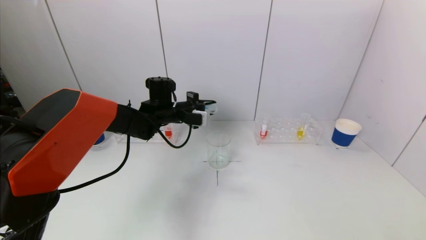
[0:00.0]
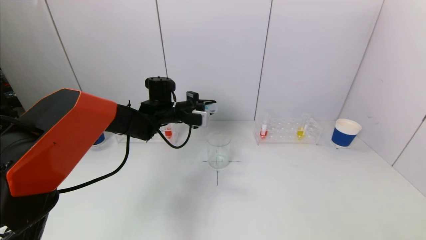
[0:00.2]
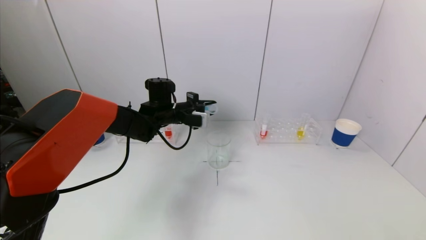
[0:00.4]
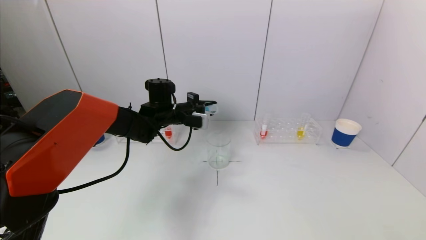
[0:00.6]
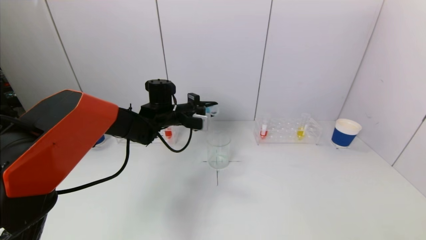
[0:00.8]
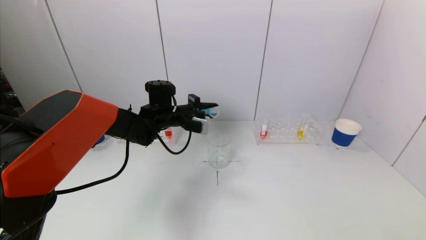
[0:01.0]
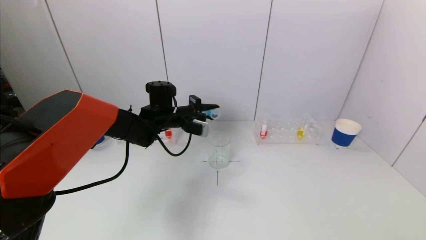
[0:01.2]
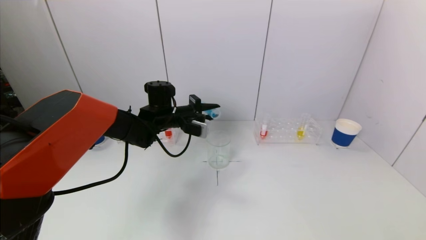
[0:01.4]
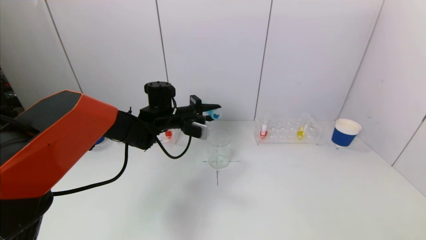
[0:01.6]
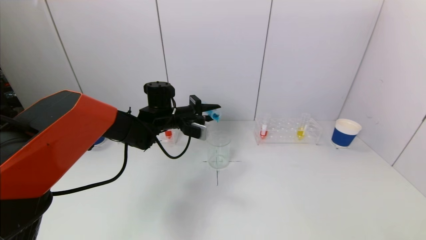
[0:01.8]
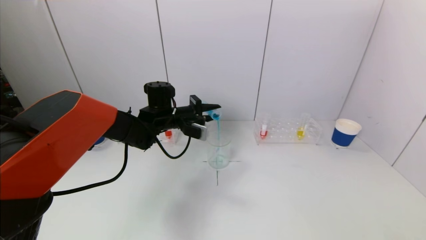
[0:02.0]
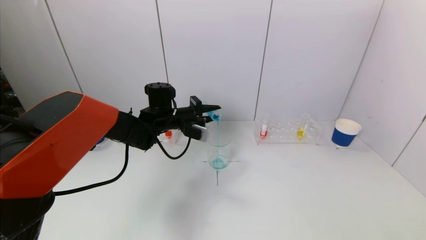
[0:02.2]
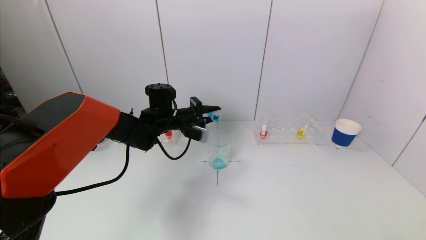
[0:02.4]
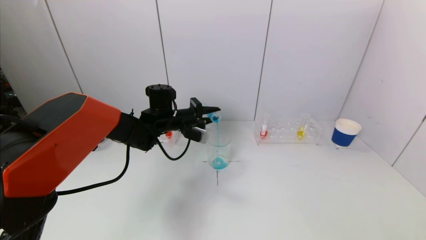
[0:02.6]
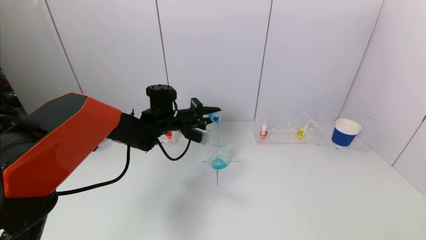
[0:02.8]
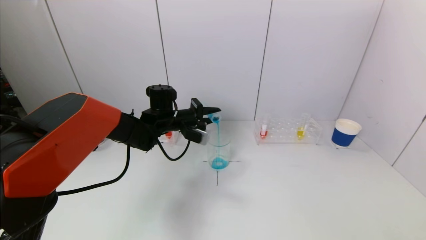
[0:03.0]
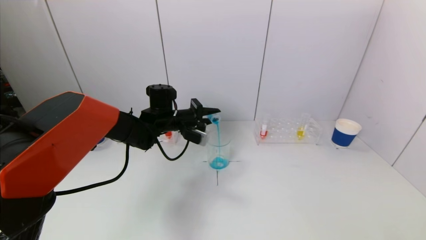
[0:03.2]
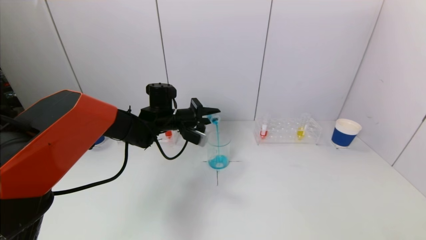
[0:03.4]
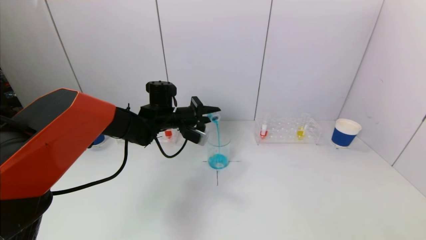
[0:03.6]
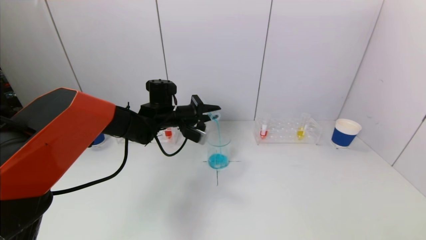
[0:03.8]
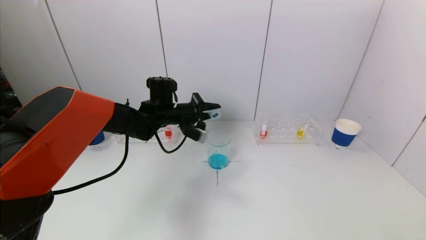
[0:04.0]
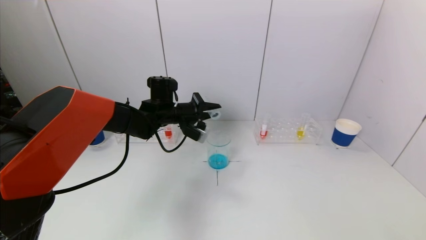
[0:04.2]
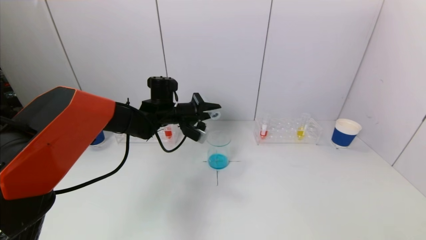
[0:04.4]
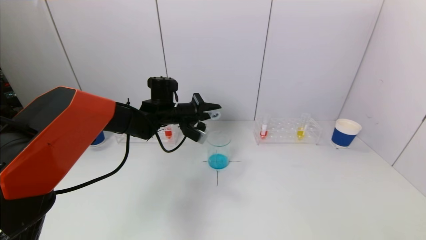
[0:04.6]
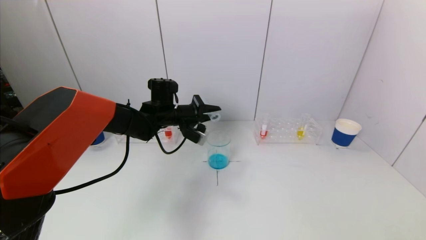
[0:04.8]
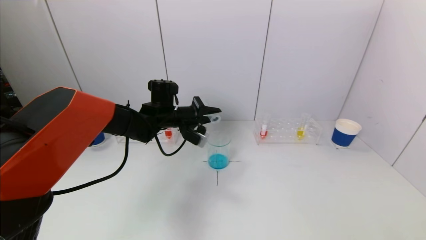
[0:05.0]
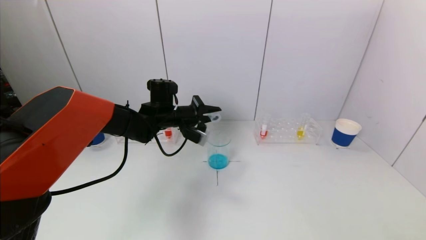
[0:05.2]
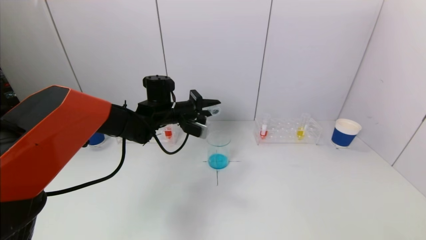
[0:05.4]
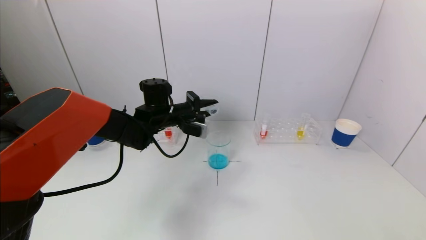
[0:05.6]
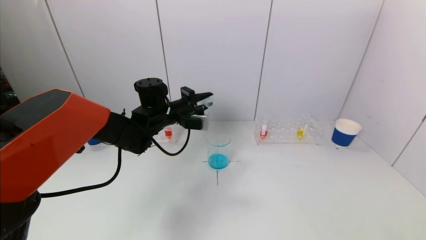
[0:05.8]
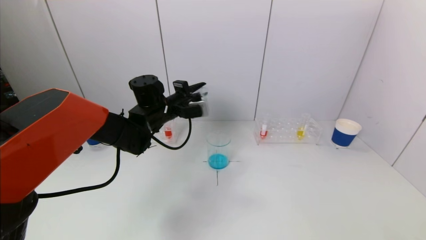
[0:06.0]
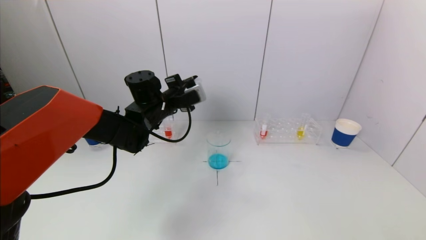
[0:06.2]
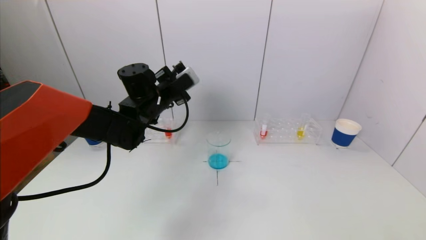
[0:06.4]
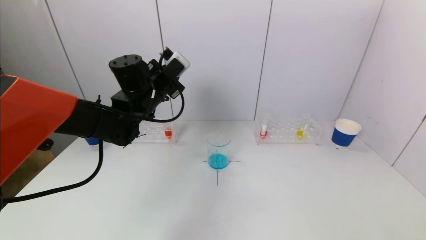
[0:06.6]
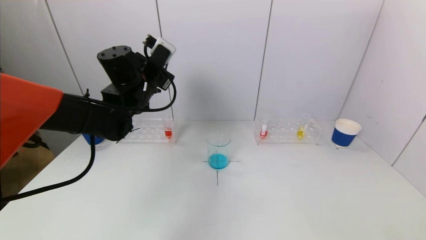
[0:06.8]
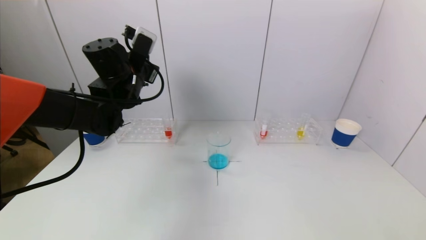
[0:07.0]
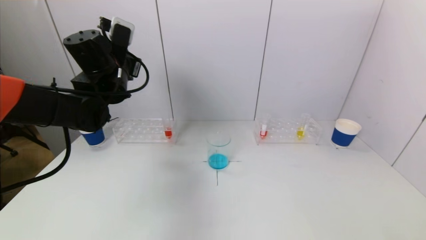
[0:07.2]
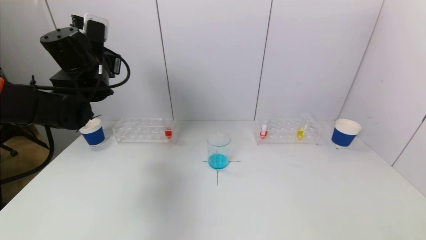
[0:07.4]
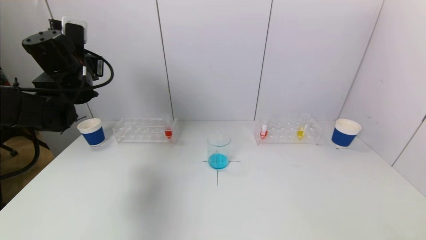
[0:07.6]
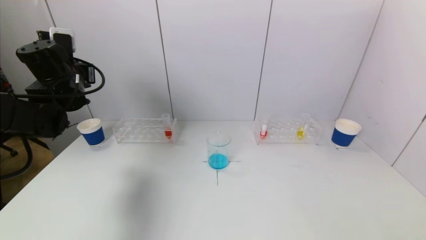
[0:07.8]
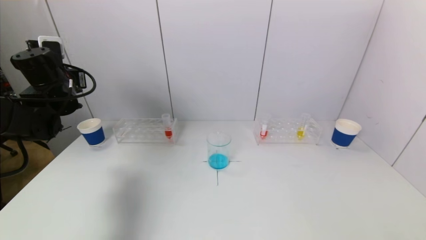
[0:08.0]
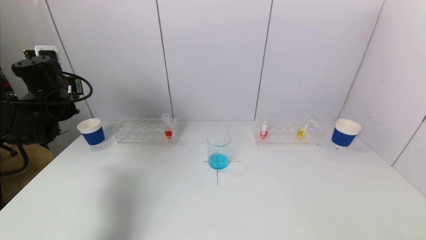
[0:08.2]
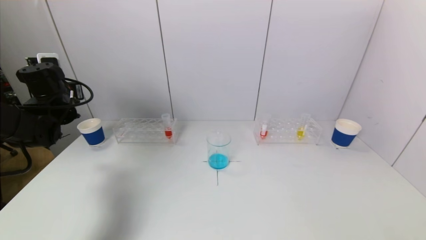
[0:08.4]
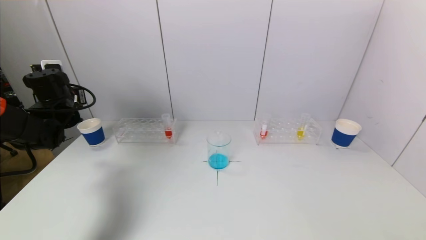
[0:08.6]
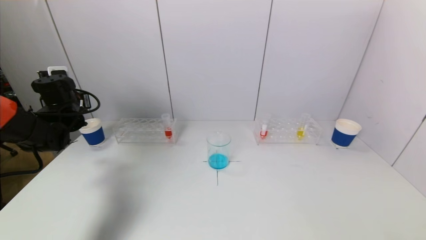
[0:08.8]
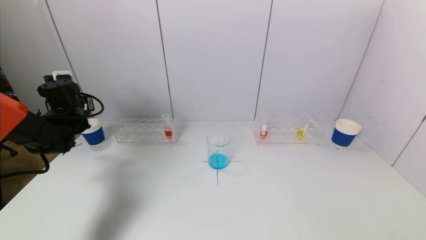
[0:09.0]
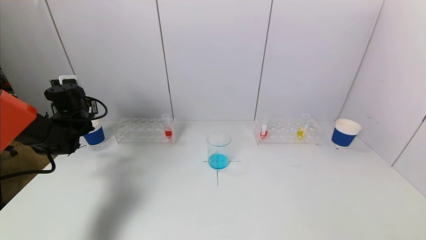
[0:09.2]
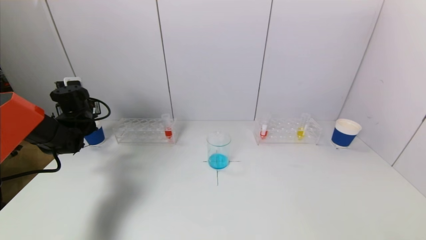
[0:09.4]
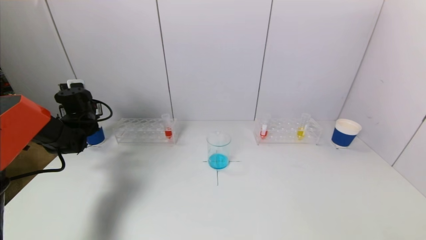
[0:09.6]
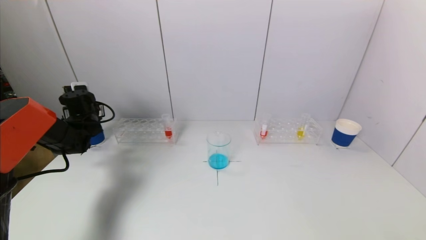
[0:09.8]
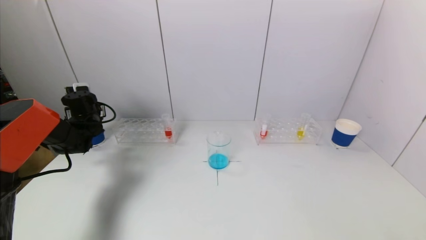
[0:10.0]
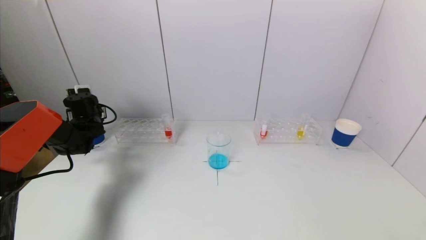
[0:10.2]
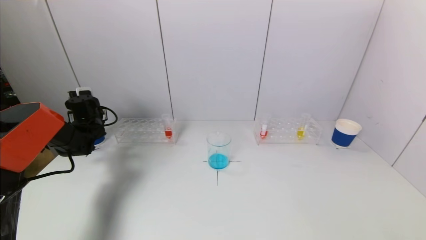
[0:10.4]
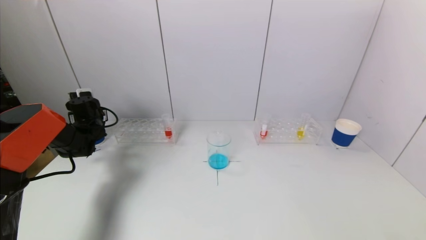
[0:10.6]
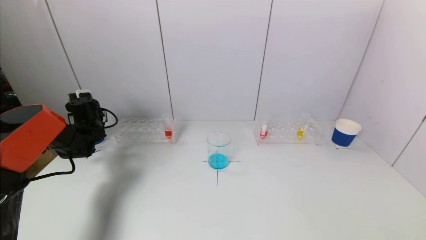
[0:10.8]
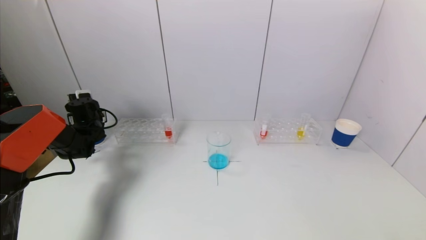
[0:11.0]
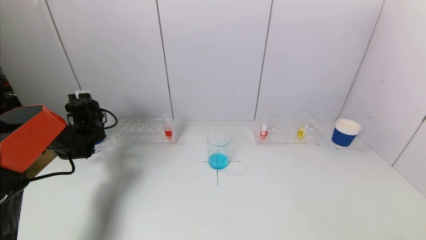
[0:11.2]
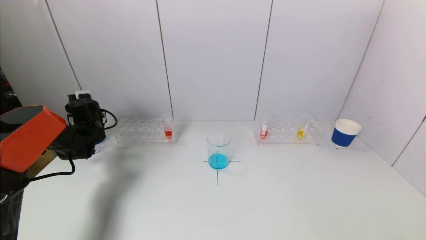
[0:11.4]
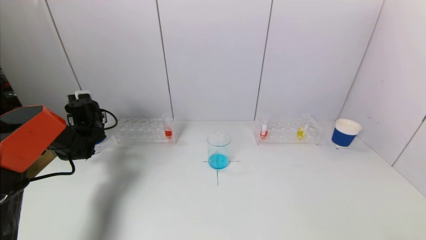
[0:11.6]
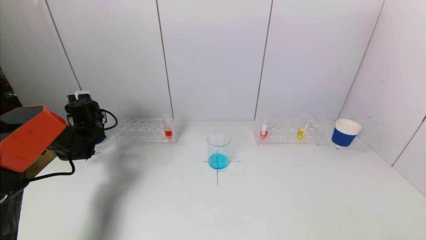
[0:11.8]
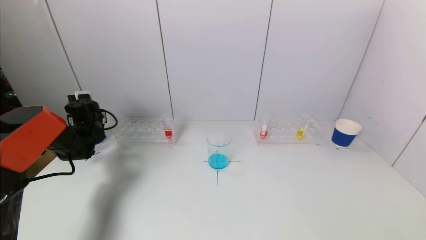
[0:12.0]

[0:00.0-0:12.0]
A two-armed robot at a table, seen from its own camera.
Task of the whole recording: pick up a test tube with pigment on left test tube rack and a test tube with pigment on right test tube rack by grippers and pour them into the beaker.
Step, 0:00.0 to 0:05.2: Pour the blue reagent into the graduated cylinder with the left gripper.
0:00.0 to 0:03.0: There are only small adjustments of the grippers.
0:03.0 to 0:04.4: The grippers stay close to where they were, moving slightly.
0:06.0 to 0:07.6: The left gripper travels to the left and upward by approximately 20 cm.
0:07.6 to 0:09.0: The left gripper heads downward and to the left, covering approximately 15 cm.
0:09.0 to 0:10.4: The left gripper travels downward and forward by approximately 10 cm.
0:10.4 to 0:12.0: The left gripper opens.

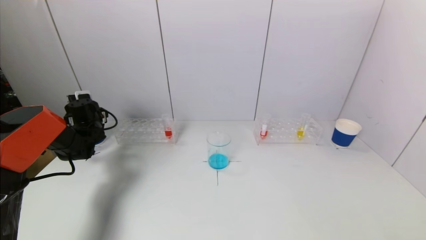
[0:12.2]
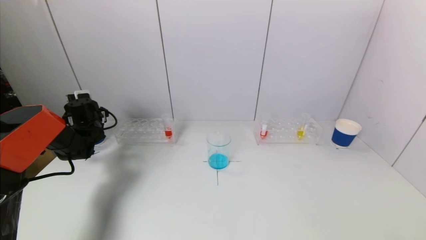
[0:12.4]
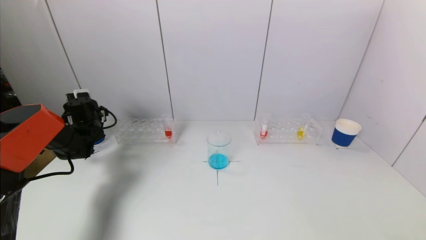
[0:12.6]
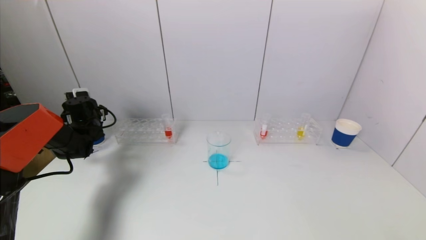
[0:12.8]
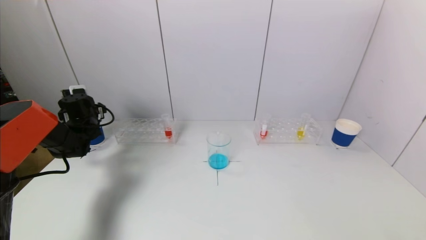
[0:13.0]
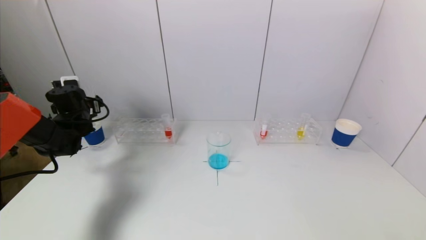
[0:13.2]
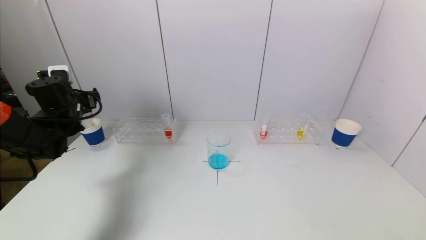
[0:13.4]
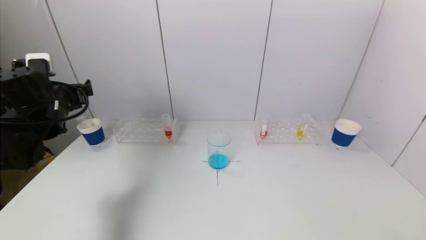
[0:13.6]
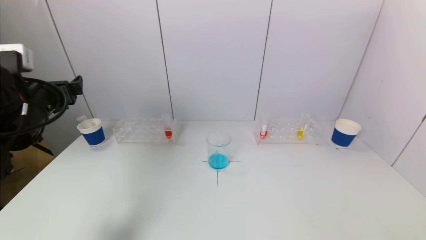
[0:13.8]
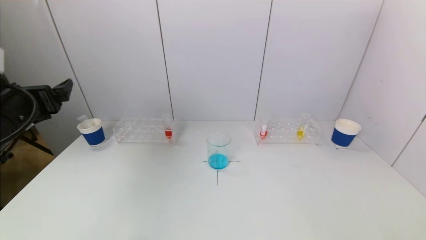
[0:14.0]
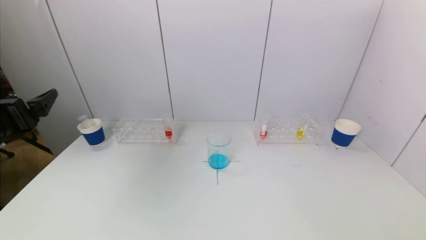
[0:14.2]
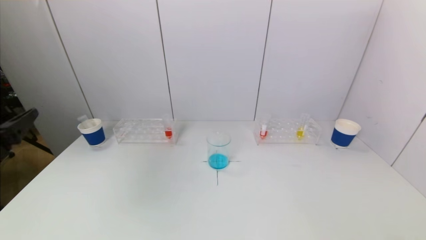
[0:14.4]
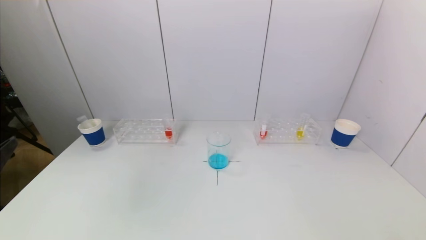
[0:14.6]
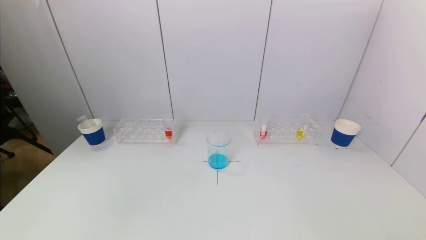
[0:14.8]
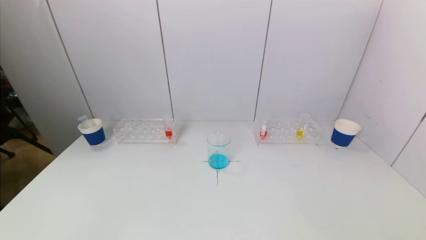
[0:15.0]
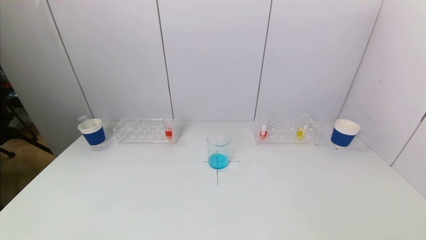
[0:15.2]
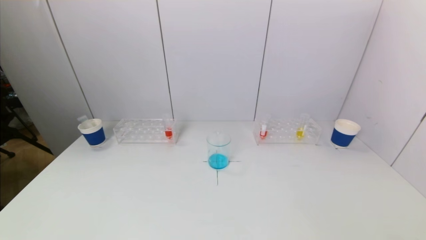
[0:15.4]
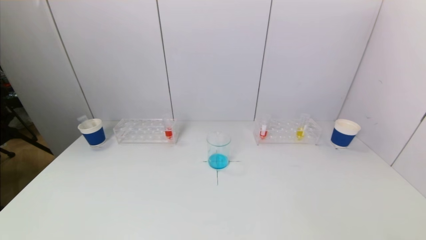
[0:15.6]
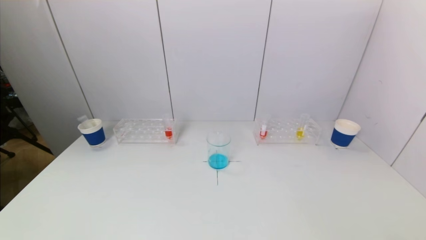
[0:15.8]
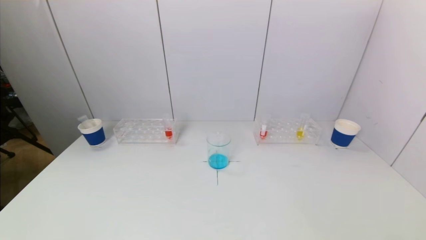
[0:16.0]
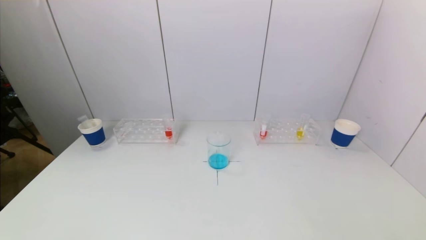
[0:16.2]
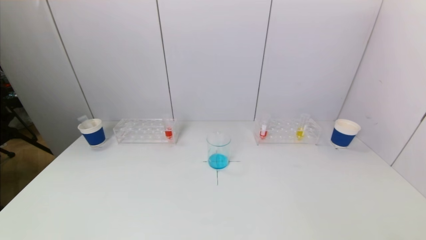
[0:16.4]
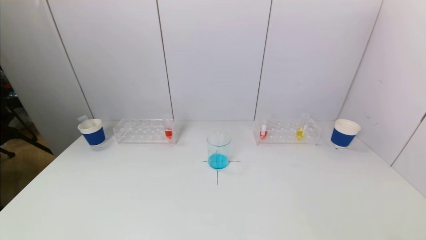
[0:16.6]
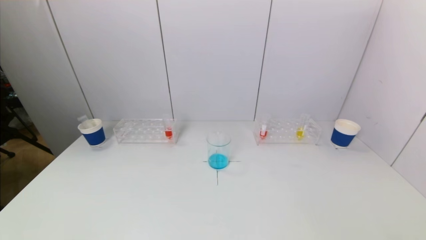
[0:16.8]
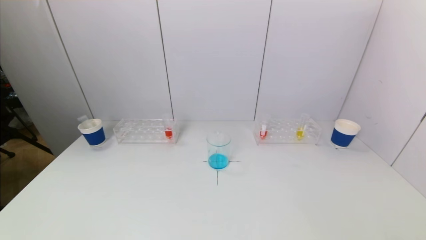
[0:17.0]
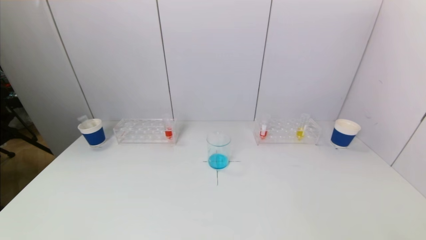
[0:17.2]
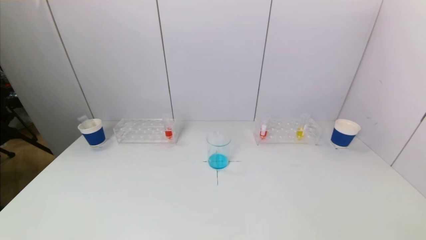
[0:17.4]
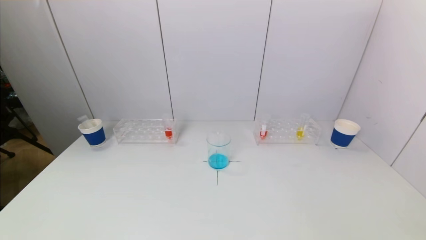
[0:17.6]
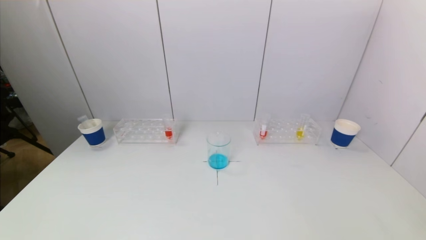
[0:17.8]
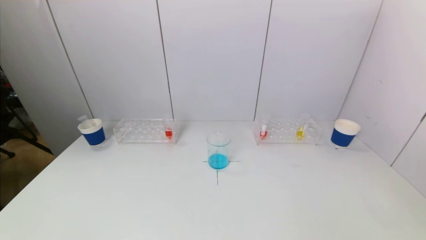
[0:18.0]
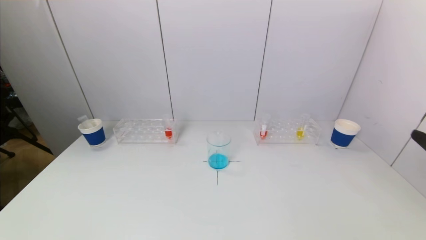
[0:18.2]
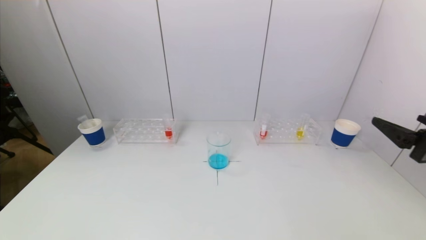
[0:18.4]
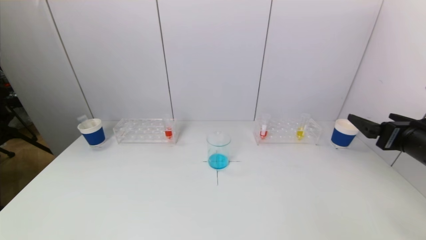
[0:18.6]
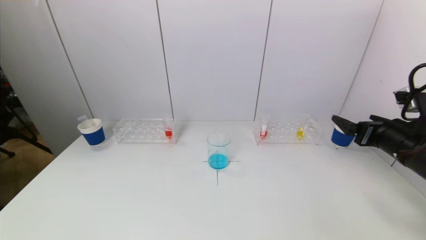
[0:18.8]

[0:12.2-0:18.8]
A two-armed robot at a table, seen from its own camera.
Task of the whole recording: pick up a test tube with pigment on left test tube rack and a test tube with pigment on right test tube rack by grippers and pour them into the beaker.
0:12.2 to 0:13.8: The left gripper shifts approximately 25 cm backward and upward.
0:13.8 to 0:15.4: The left gripper heads backward and downward, covering roughly 35 cm.
0:17.2 to 0:18.8: The right gripper moves forward, roughly 30 cm.
